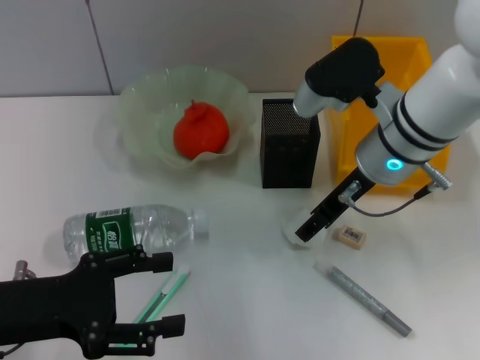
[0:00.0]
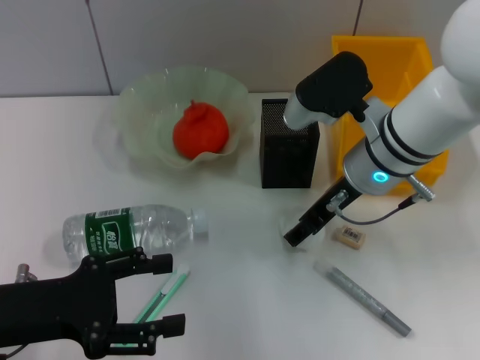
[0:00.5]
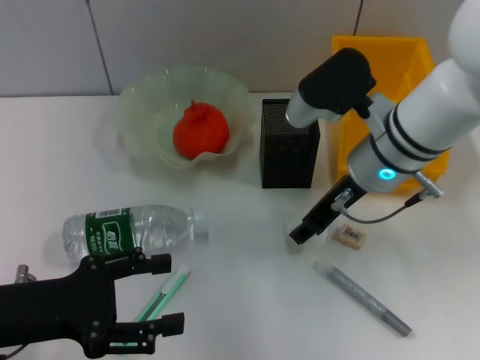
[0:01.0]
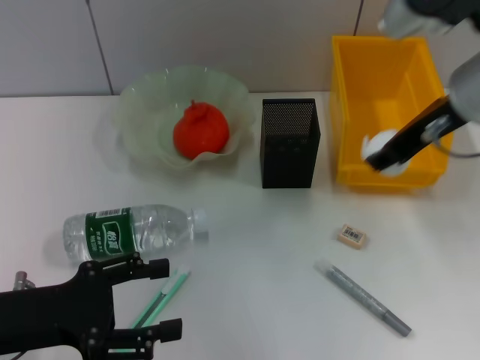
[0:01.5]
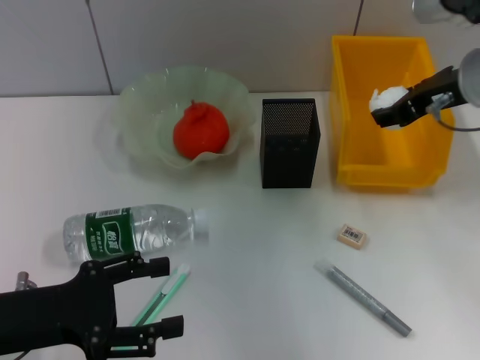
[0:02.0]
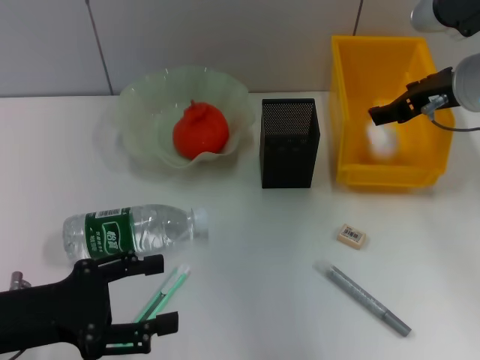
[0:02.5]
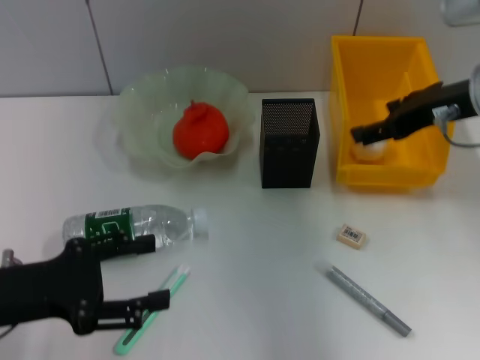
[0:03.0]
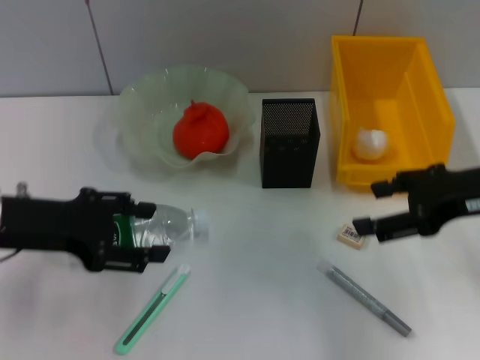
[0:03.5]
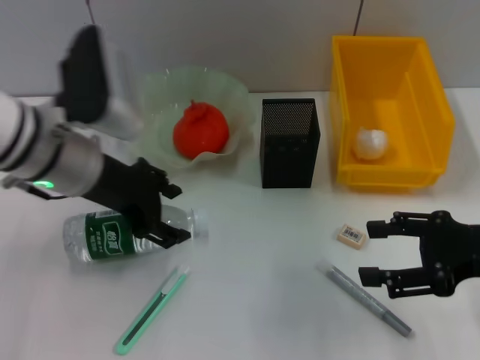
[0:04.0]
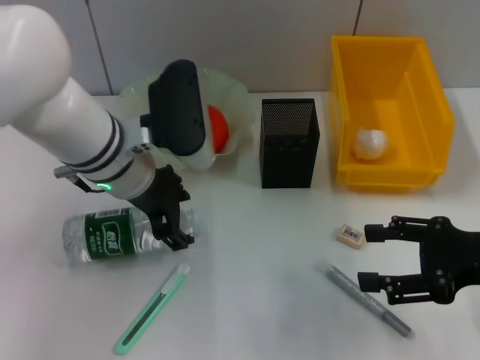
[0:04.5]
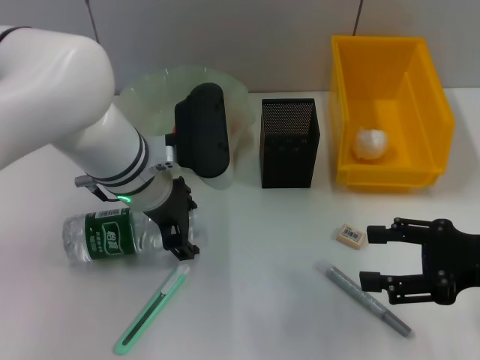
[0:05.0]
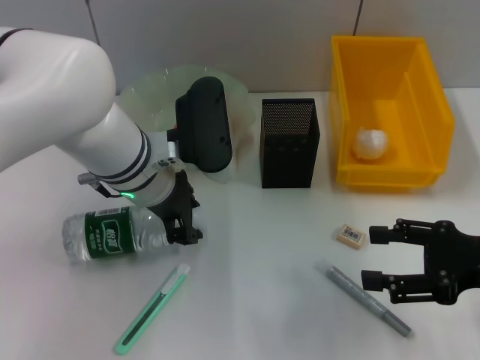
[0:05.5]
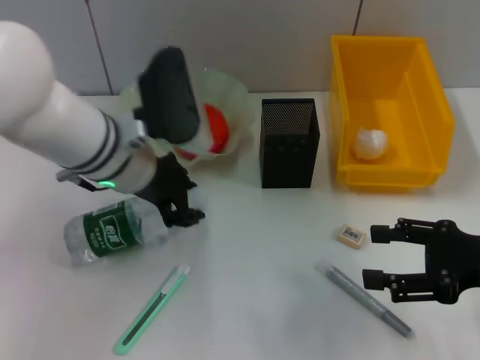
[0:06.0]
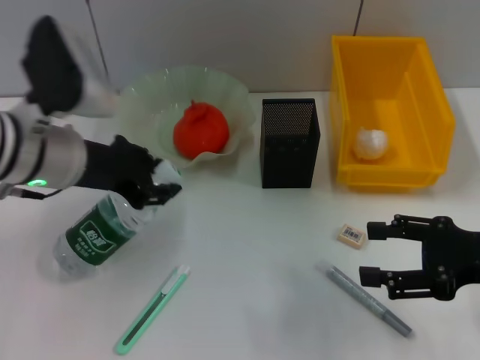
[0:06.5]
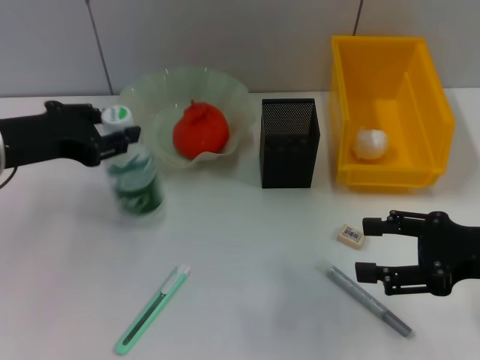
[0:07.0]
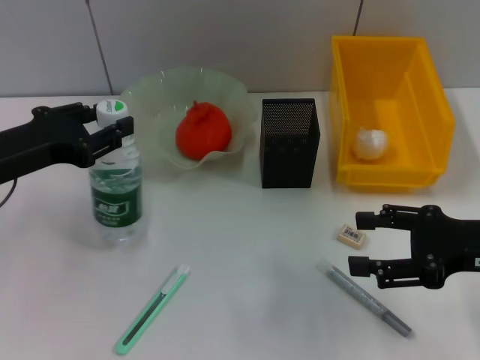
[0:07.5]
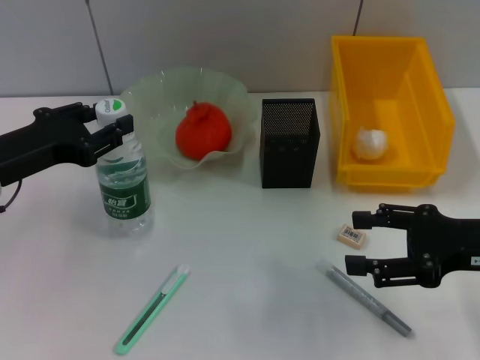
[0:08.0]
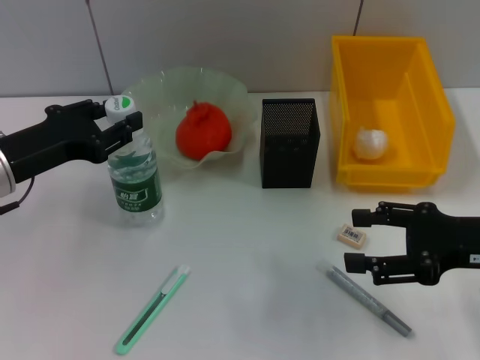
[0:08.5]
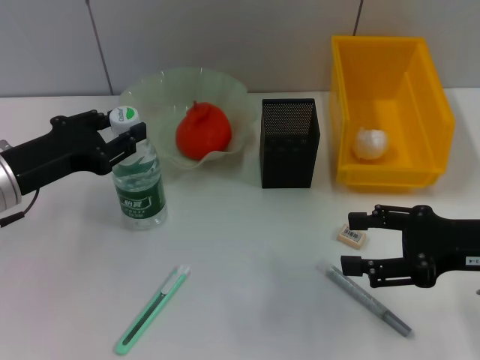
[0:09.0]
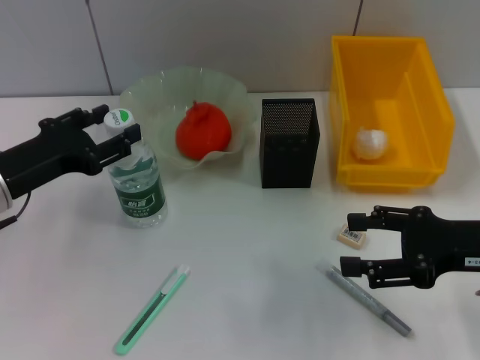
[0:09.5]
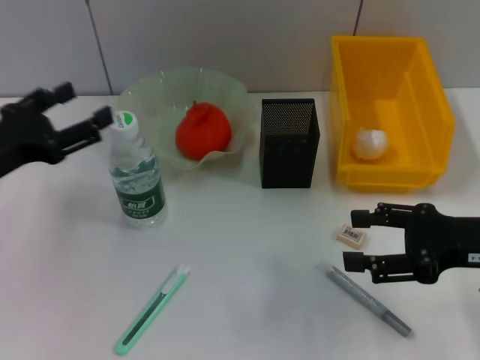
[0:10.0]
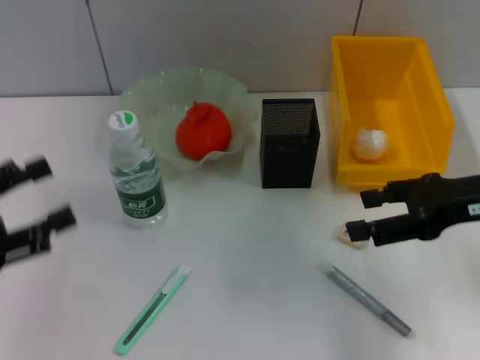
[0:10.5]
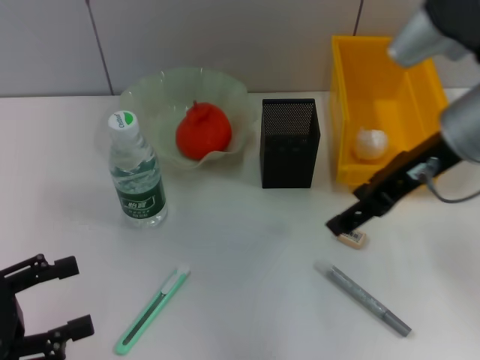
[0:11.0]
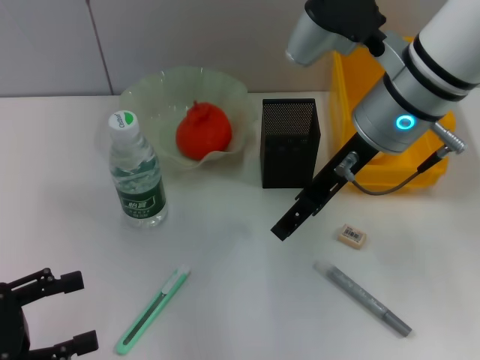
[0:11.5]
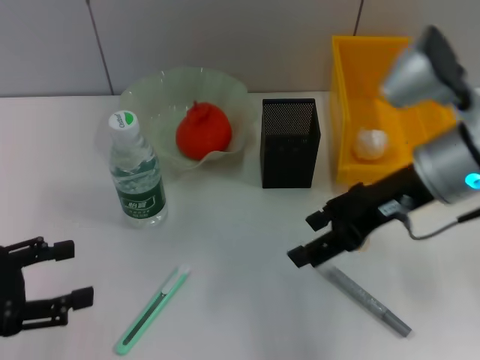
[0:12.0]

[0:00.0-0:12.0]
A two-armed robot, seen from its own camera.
Step, 0:01.0 to 0:02.5: Place the paper ball into the trash can with the right hand.
Step, 0:03.0 to 0:05.5: Grab the water bottle with the left hand.
Step, 0:06.0 to 0:09.5: Place the water bottle on the table with the left hand.
0:00.0 to 0:02.0: The right gripper is displaced to the right and upward by about 10 cm.
0:02.0 to 0:04.0: The left gripper shifts about 20 cm forward, to the right and upward, while the right gripper travels backward, downward and to the right by about 15 cm.
0:04.0 to 0:06.0: The left gripper moves to the right, approximately 5 cm, and closes its fingers.
0:06.0 to 0:08.0: The left gripper shifts about 15 cm to the left.
0:08.0 to 0:10.0: The left gripper opens up.
0:10.0 to 0:12.0: The left gripper goes some 10 cm backward, while the right gripper heads to the left, forward and upward, covering about 10 cm.

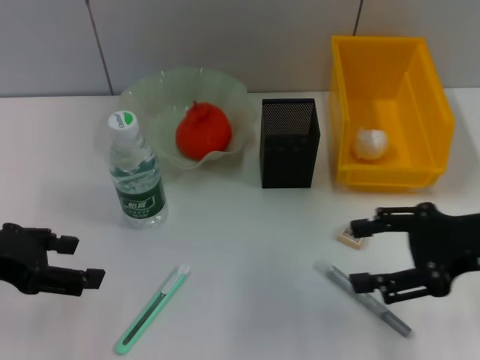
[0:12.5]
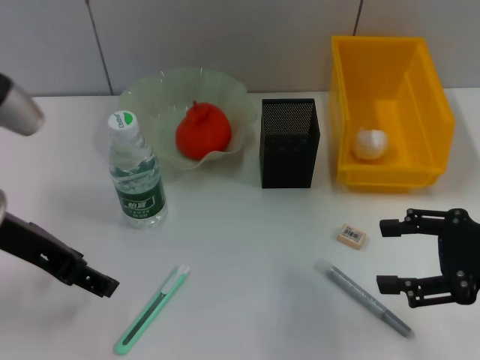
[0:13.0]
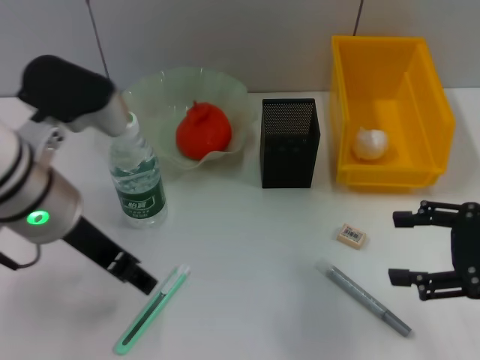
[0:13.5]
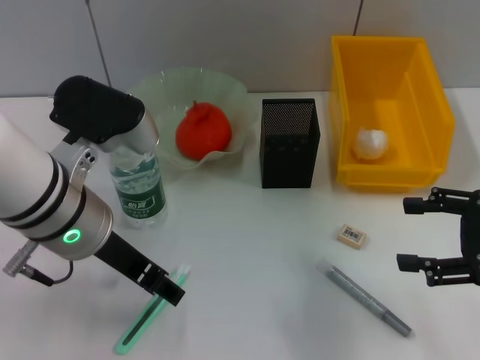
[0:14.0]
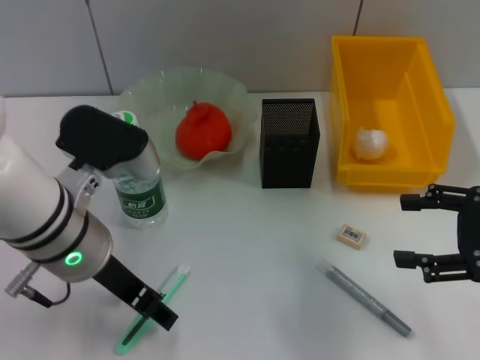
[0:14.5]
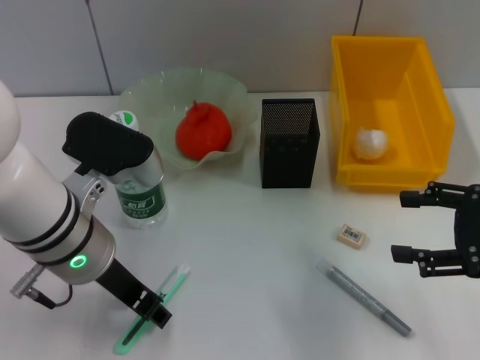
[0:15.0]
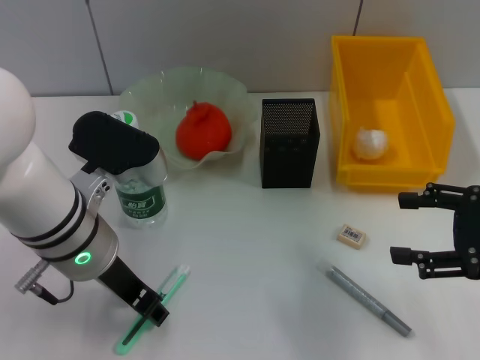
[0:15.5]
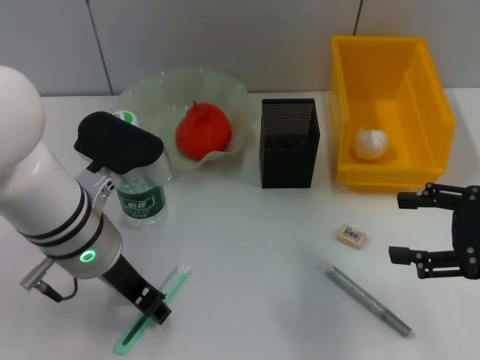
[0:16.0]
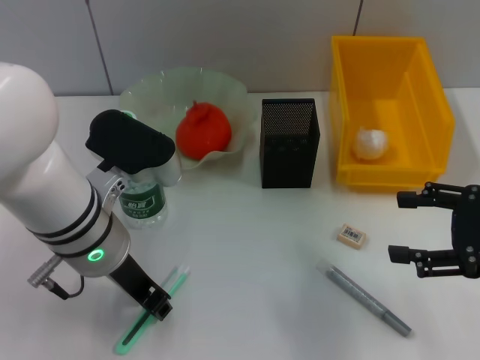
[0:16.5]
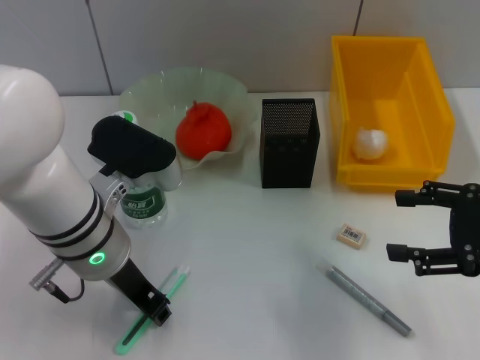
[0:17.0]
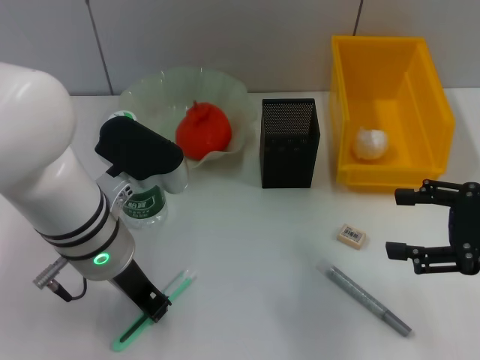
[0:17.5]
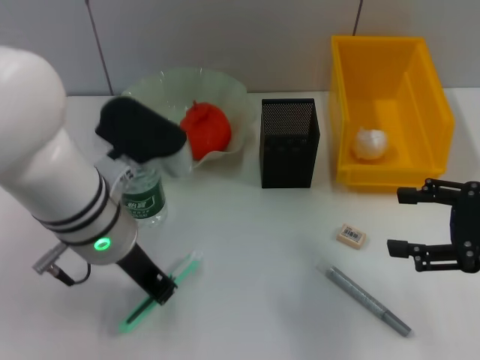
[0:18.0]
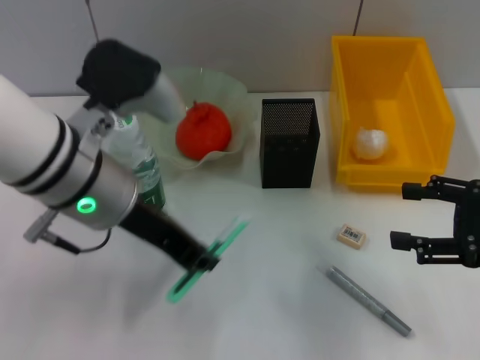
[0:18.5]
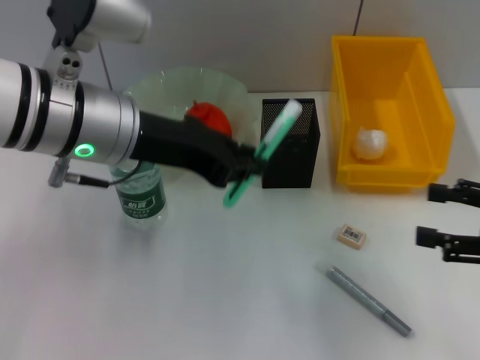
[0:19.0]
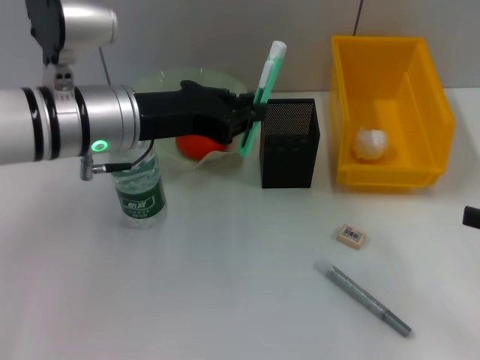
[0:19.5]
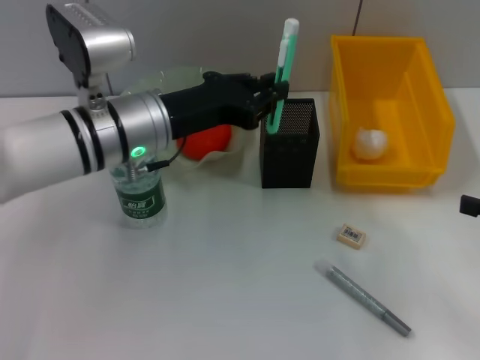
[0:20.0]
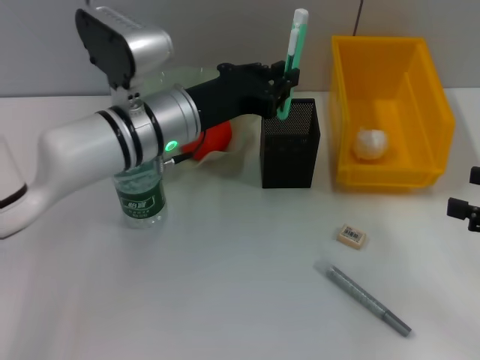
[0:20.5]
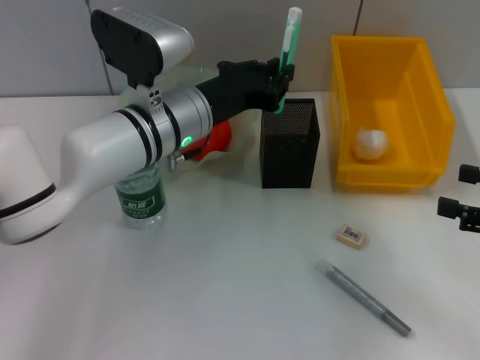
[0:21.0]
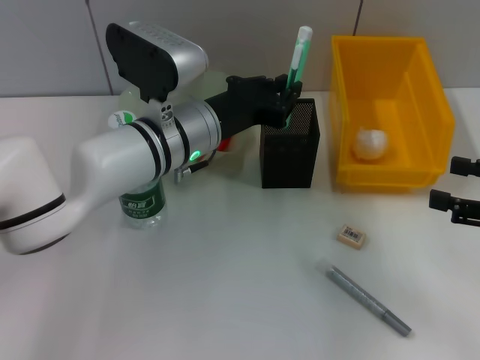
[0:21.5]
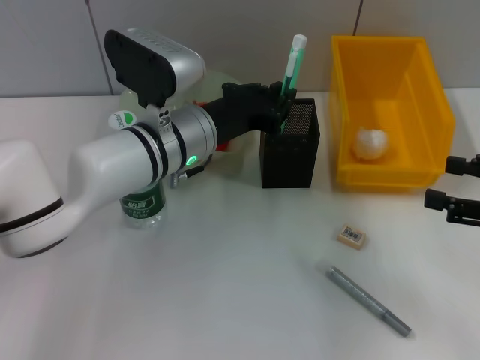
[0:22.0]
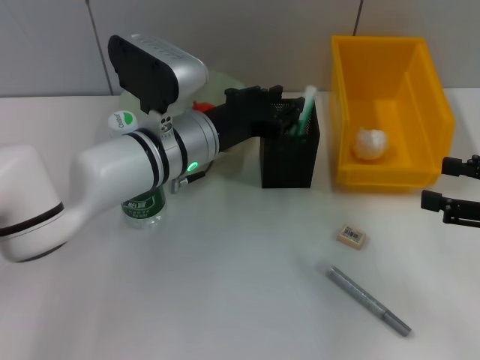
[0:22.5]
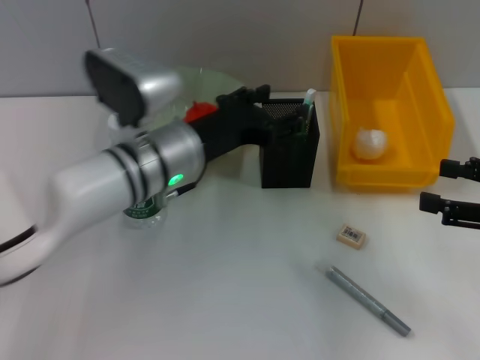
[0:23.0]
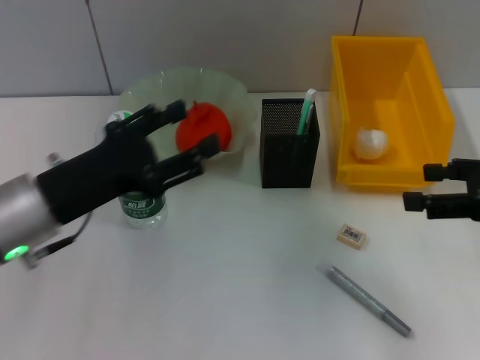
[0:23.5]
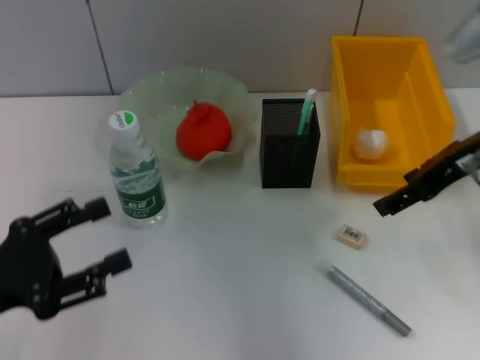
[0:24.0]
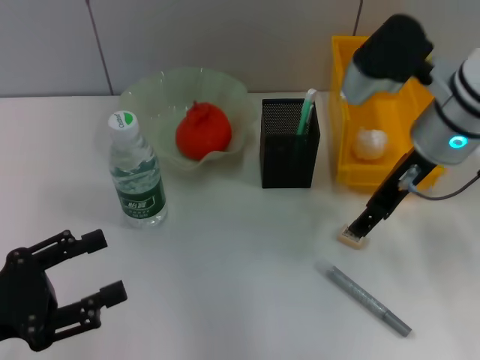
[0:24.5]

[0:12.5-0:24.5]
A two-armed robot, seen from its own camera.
Step, 0:12.5 to 0:17.5: Grab the blue utility knife with the right hand.
Step, 0:18.0 to 0:22.5: Place the blue utility knife into the pen holder with the right hand.
0:12.5 to 0:14.5: The left gripper travels to the right by approximately 15 cm.
0:14.5 to 0:16.5: The left gripper closes.
0:16.5 to 0:18.5: The left gripper shifts approximately 5 cm upward.
0:18.5 to 0:20.5: The left gripper heads forward and downward, covering roughly 10 cm.
0:20.5 to 0:22.5: The grippers stay close to where they were, moving slightly.
0:22.5 to 0:24.5: The left gripper shifts some 30 cm to the left and backward, and opens, while the right gripper shifts roughly 20 cm to the left and forward.

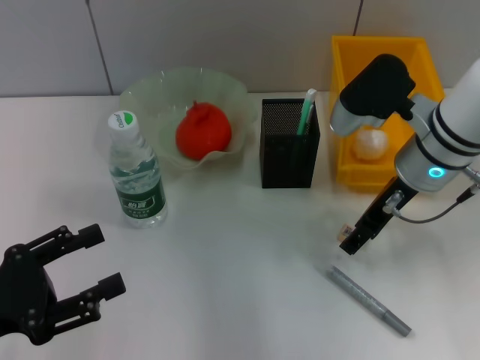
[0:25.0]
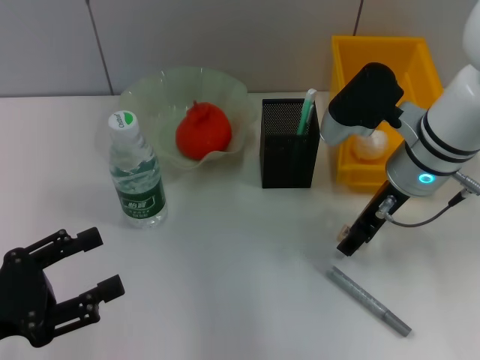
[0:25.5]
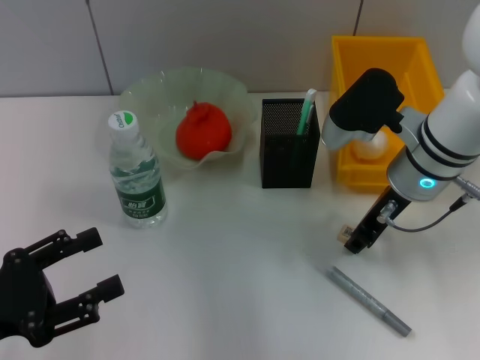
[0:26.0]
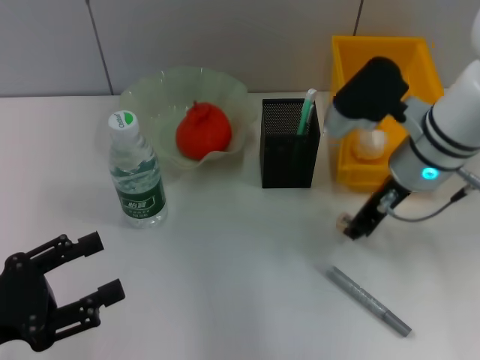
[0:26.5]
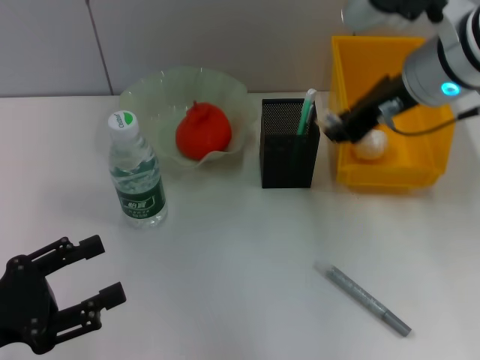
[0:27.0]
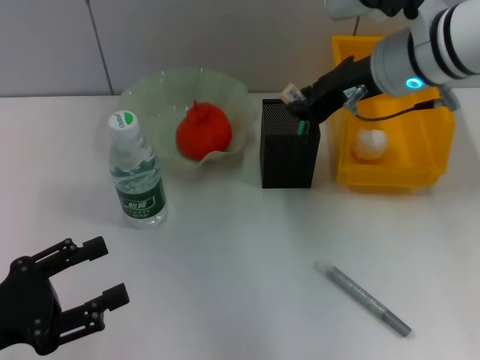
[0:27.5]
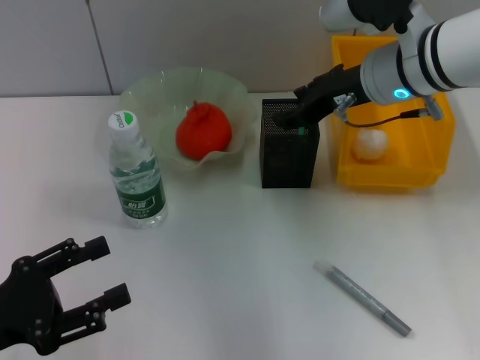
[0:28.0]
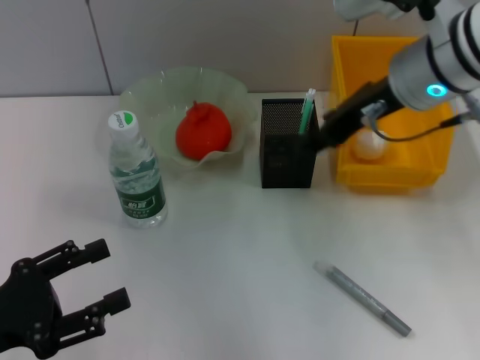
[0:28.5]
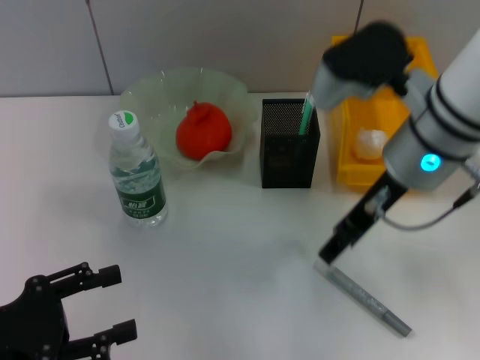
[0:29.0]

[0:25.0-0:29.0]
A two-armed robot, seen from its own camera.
Step, 0:26.5 to 0:27.5: Put the eraser into the pen holder with the right hand.
0:25.0 to 0:27.0: The right gripper shifts approximately 10 cm upward, and closes.
0:27.0 to 0:29.0: The right gripper changes place by approximately 5 cm, and opens up.
